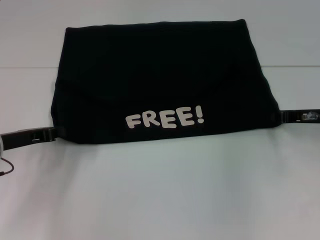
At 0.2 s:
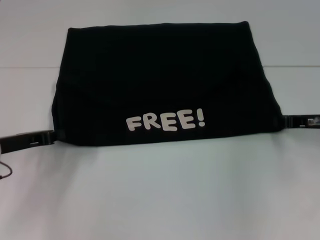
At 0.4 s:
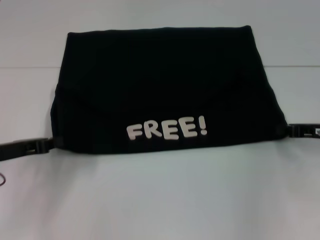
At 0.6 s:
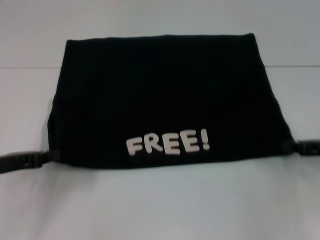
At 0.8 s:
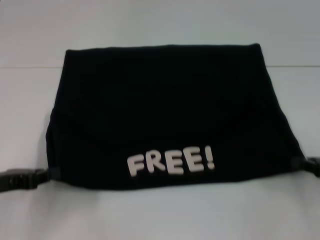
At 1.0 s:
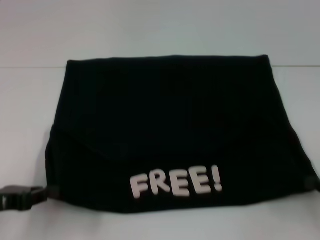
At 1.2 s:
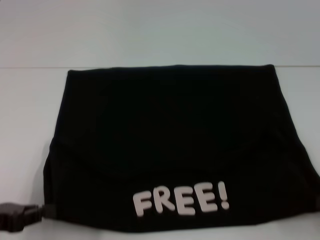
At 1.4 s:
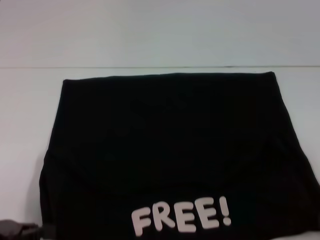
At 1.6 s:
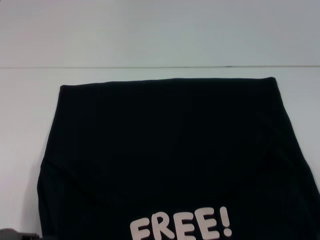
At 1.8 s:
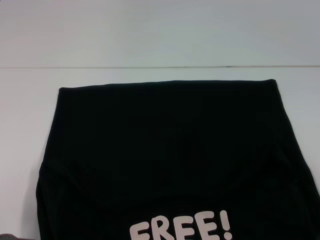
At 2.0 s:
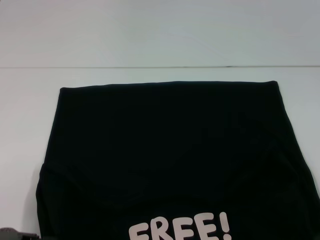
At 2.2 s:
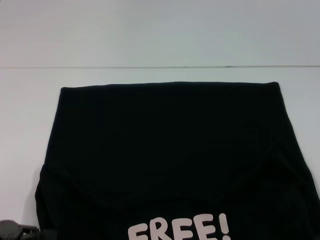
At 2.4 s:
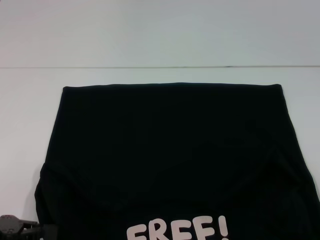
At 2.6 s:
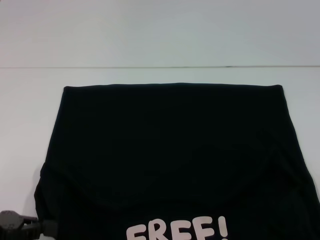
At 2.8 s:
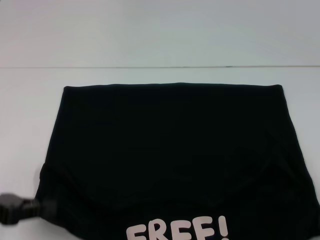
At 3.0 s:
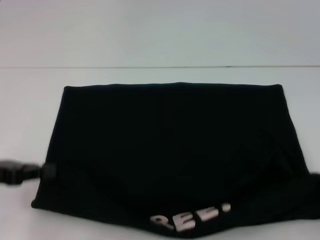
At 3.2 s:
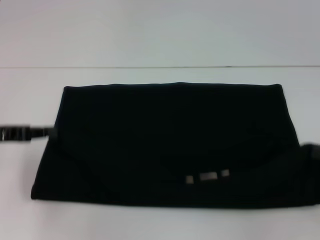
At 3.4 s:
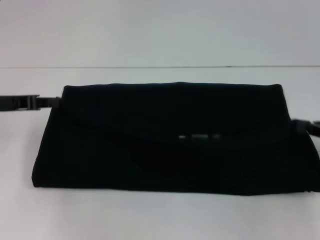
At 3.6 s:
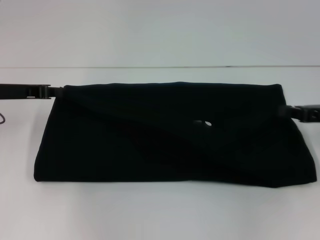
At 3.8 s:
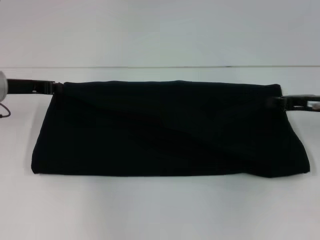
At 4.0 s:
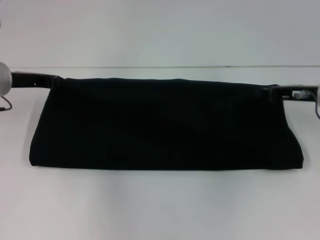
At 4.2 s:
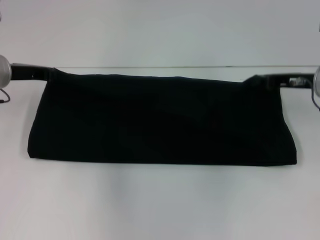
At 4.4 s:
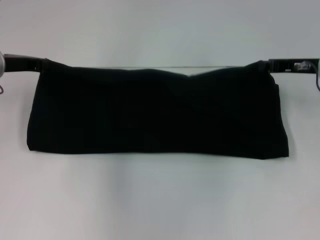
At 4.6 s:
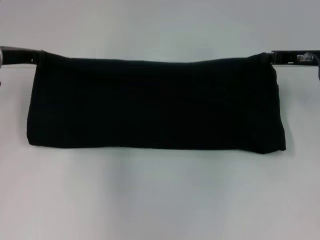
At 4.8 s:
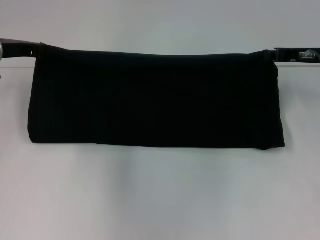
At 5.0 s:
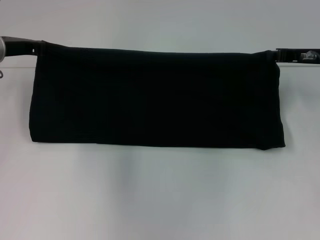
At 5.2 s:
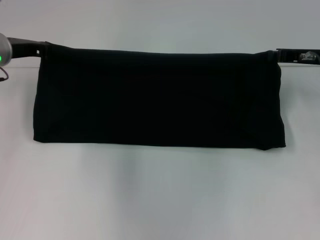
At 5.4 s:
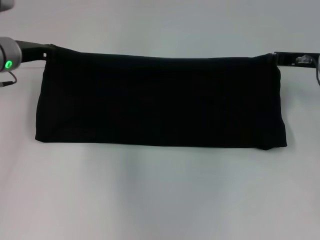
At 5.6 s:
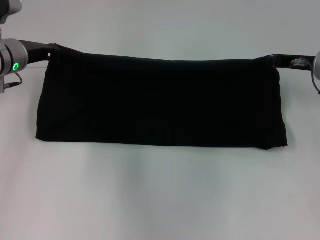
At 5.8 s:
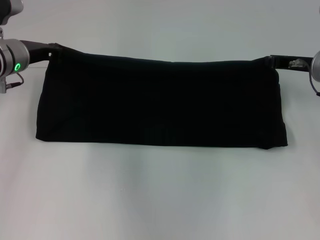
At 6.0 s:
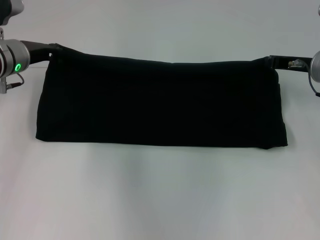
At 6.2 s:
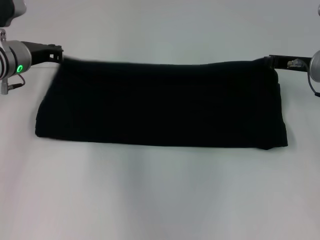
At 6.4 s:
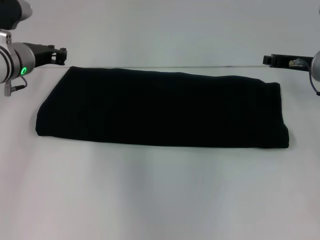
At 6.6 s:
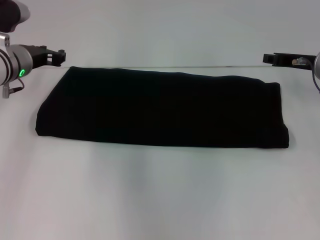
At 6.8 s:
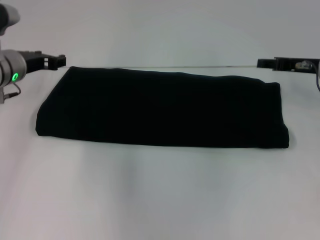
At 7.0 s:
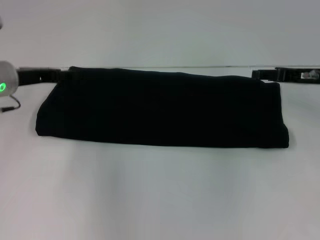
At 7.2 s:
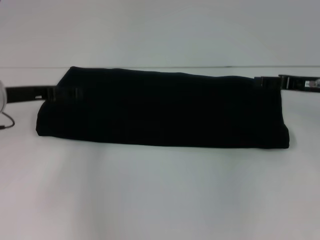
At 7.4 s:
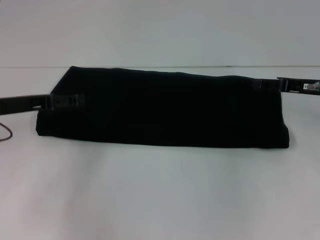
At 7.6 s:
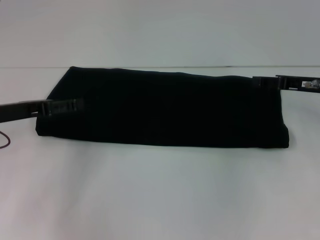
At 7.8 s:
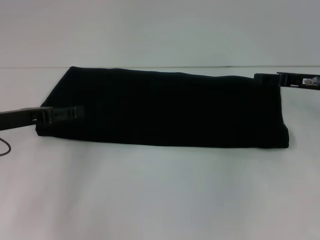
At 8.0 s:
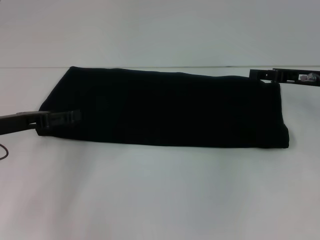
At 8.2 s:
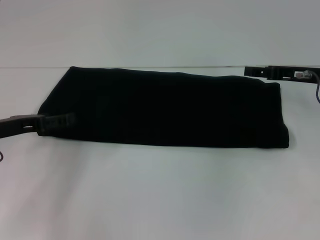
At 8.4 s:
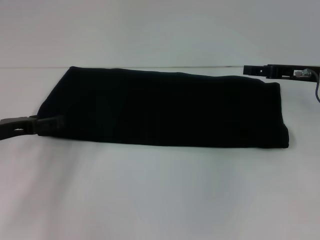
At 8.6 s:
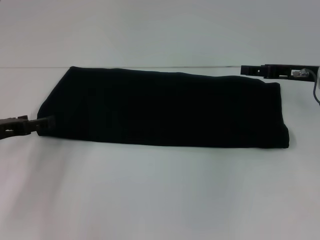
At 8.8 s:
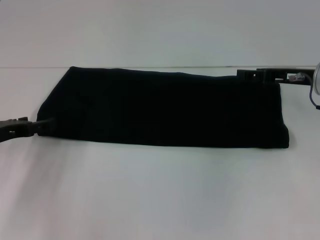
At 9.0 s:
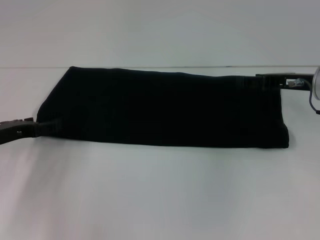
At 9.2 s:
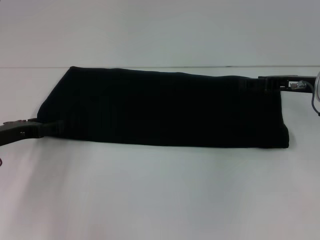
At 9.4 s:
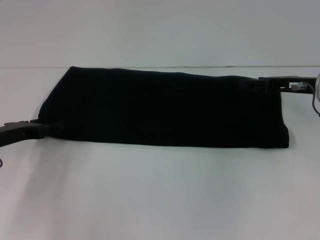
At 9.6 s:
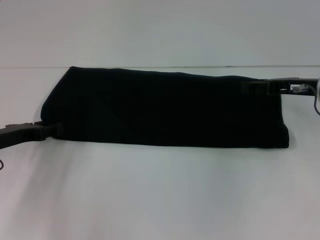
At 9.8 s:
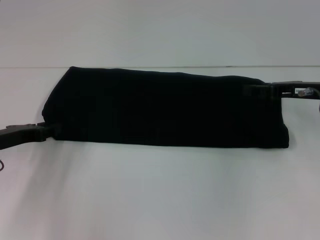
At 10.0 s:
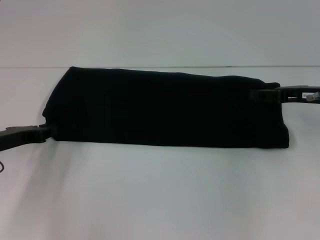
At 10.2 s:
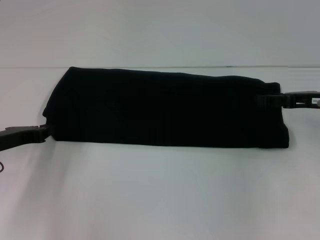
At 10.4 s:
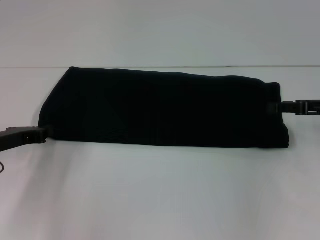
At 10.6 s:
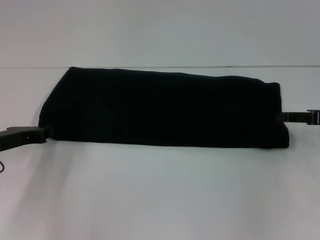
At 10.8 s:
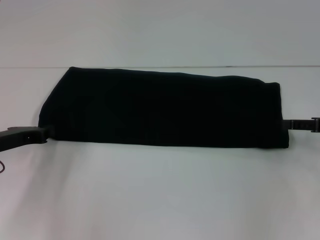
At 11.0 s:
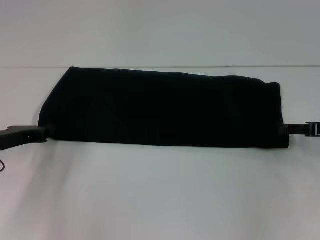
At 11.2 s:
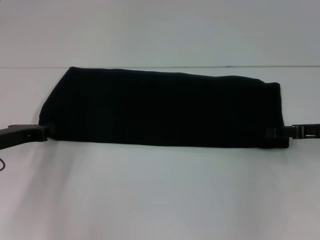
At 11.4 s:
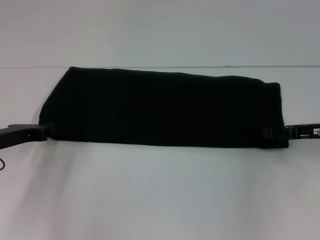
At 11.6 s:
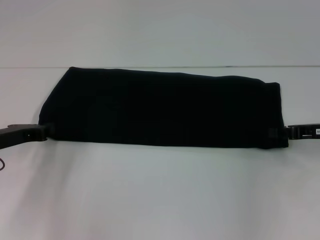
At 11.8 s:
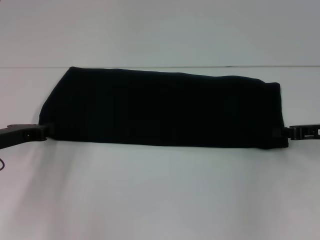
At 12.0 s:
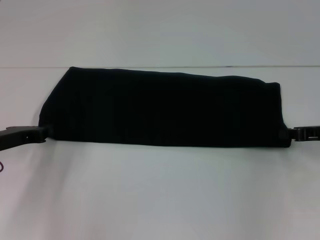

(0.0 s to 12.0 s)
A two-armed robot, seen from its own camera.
Step, 1.6 s - 7.2 s: Fold the clothes with your right hand.
0.0 s - 1.6 s: The left gripper is displaced backward by about 15 cm. The right gripper shifts approximately 20 cm backward and to the right.
1.6 s - 3.0 s: The left gripper shifts approximately 10 cm forward.
3.0 s - 4.4 s: The right gripper goes some 25 cm forward and to the left, while the left gripper is displaced forward by about 15 cm.
4.4 s - 6.0 s: The grippers stay close to where they were, moving slightly.
6.0 s - 7.6 s: The left gripper heads backward, covering roughly 10 cm, and opens. The right gripper opens its fingers.
7.6 s - 9.0 s: The left gripper heads downward, covering about 5 cm.
9.0 s - 10.4 s: The left gripper closes its fingers, while the right gripper is displaced to the right by some 5 cm.
10.4 s - 12.0 s: The right gripper closes up.

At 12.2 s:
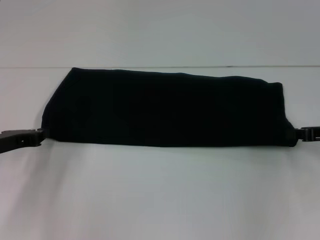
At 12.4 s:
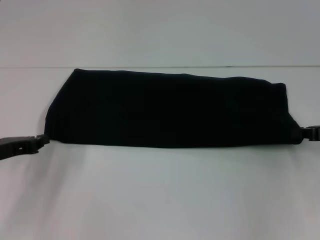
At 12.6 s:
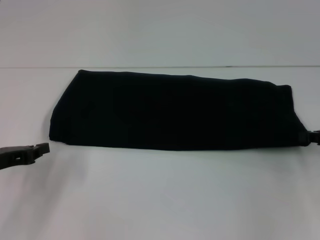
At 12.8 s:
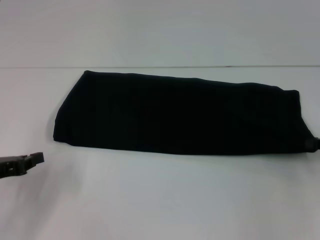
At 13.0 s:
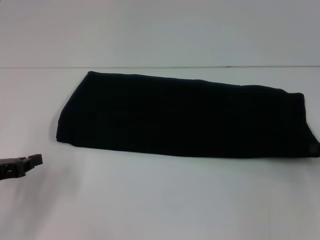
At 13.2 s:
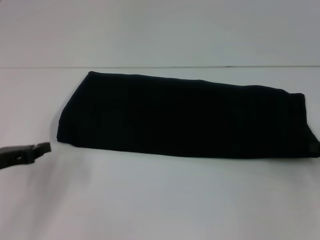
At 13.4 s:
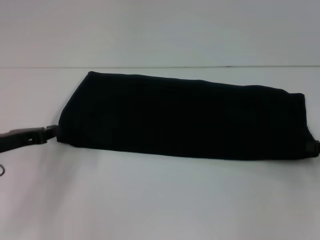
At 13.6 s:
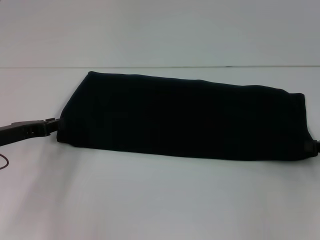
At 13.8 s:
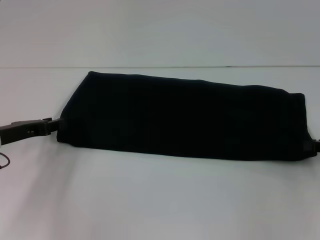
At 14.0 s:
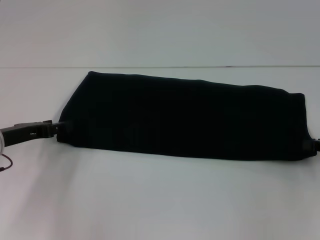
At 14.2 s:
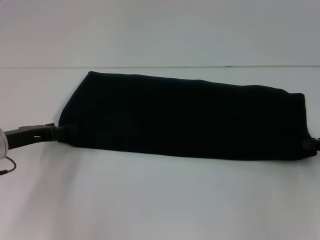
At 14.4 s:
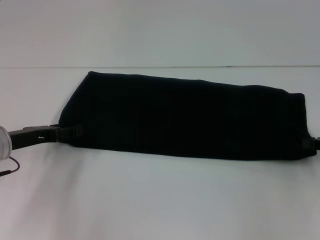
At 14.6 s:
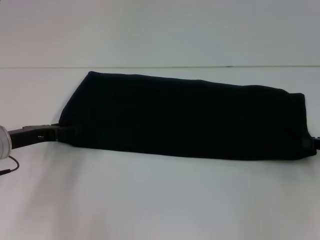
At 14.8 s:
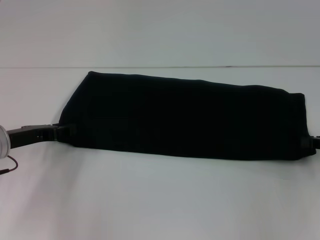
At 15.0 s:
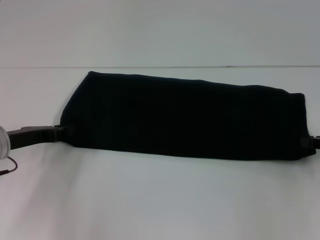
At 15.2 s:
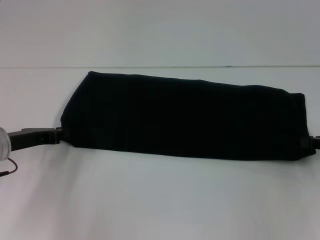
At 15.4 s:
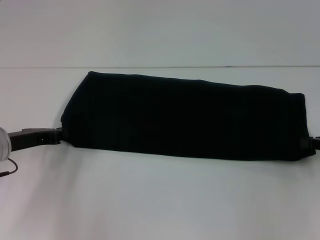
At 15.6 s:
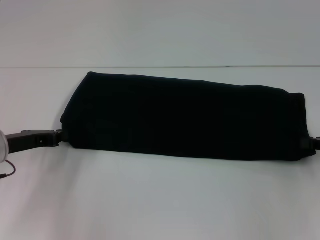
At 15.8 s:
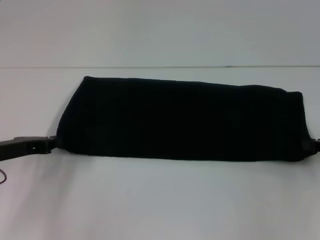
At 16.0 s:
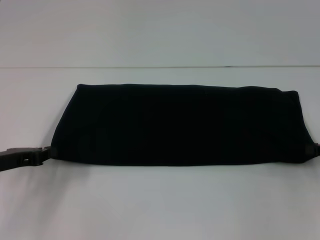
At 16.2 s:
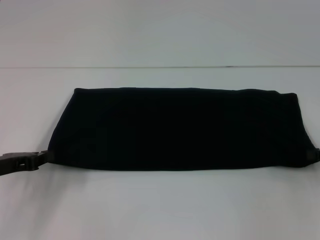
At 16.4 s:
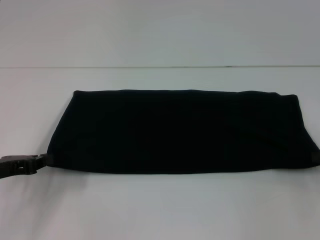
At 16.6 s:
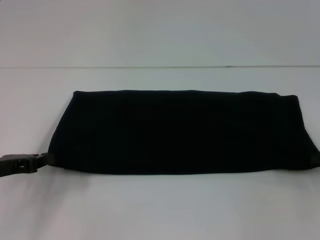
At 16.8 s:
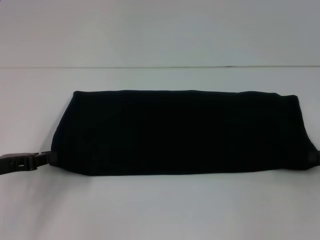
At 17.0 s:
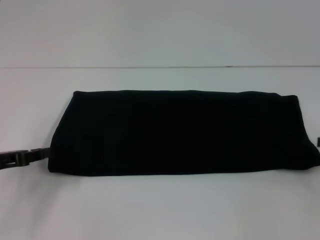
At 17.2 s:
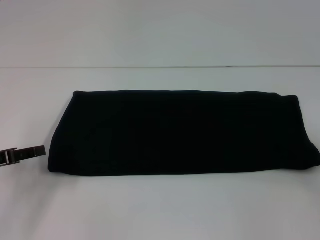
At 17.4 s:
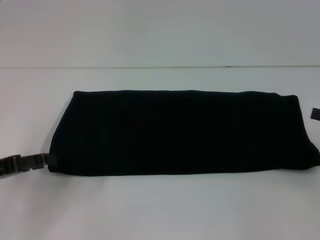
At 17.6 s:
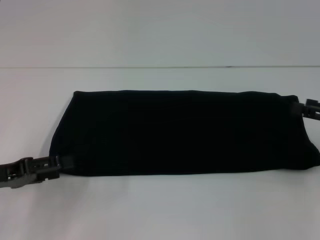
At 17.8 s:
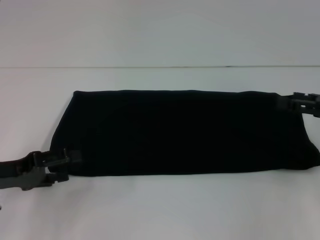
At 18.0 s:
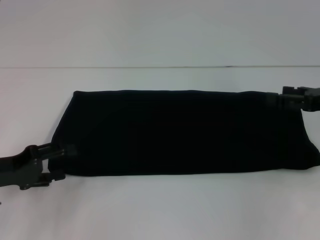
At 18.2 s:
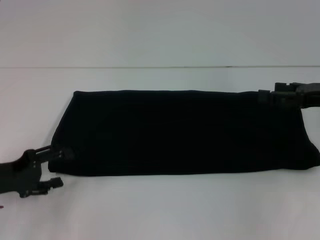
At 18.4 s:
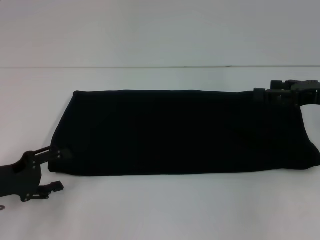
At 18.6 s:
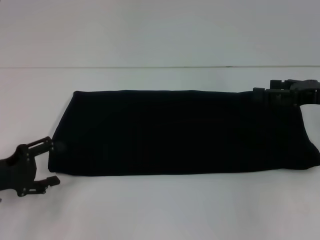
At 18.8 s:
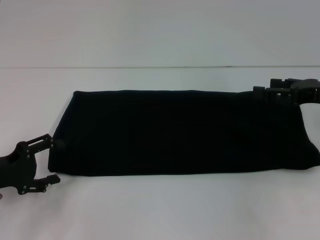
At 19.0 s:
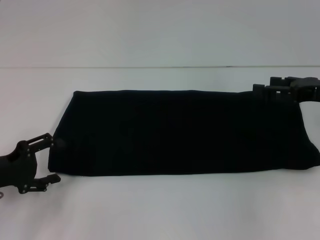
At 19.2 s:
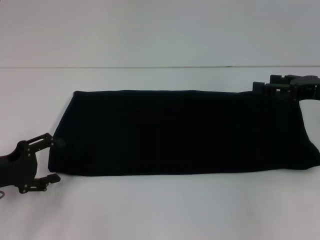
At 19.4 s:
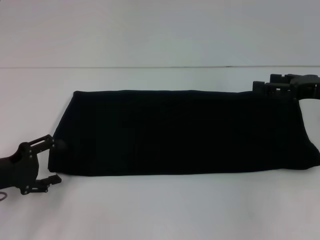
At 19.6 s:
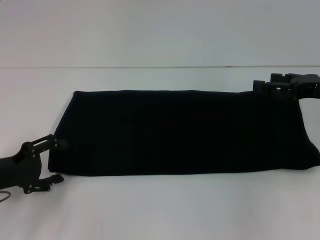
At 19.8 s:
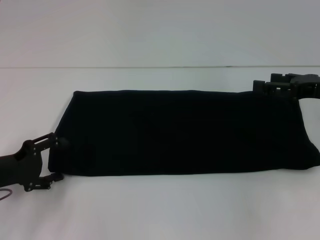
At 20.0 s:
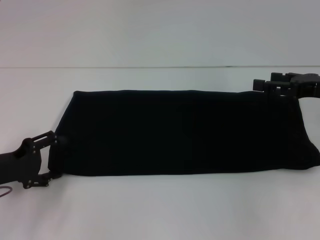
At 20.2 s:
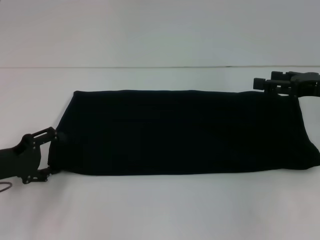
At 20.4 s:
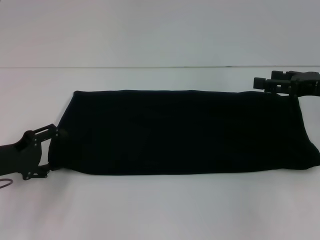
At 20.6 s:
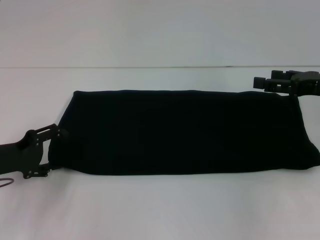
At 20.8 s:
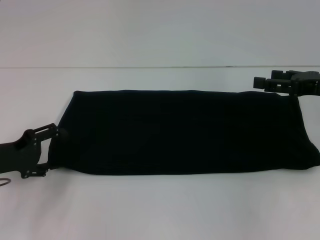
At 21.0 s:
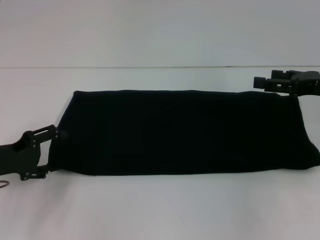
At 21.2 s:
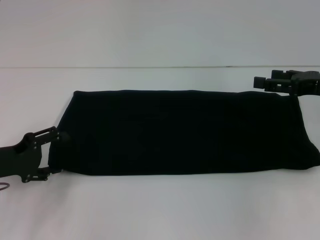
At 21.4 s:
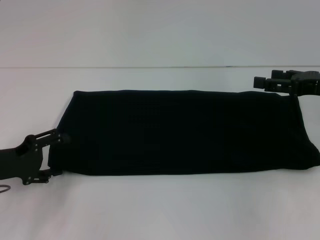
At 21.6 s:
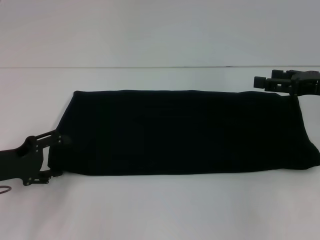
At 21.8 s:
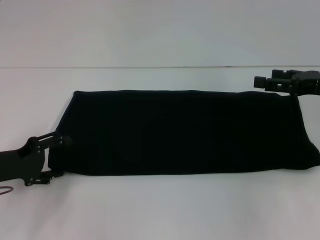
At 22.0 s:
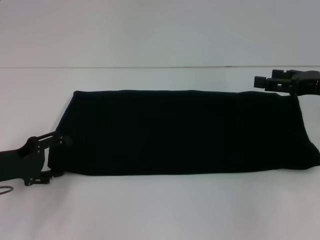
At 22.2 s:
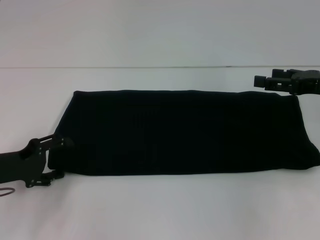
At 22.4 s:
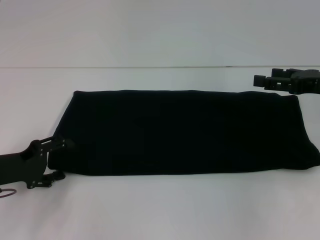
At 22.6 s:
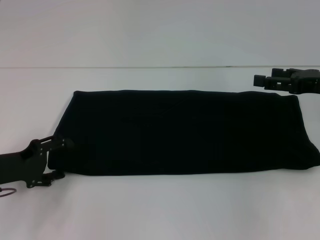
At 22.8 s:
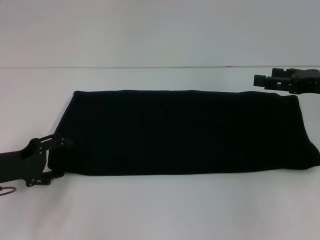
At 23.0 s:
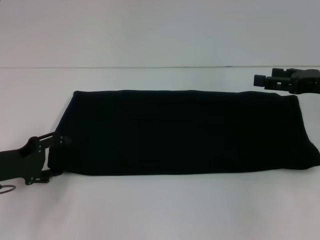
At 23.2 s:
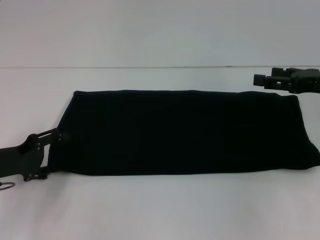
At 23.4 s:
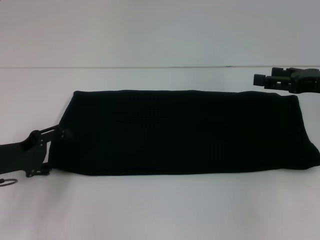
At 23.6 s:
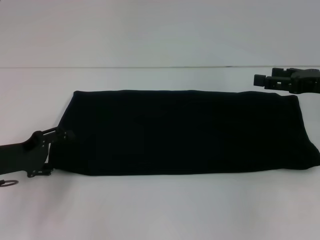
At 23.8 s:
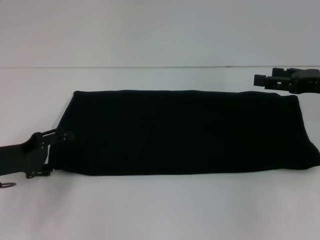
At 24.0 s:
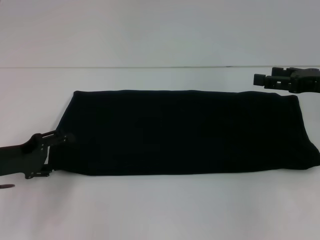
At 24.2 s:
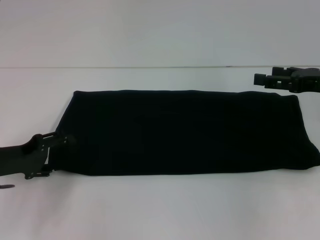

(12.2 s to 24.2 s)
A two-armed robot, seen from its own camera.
12.2 s - 13.8 s: The left gripper goes backward and returns, roughly 5 cm each way.
13.8 s - 15.2 s: The left gripper opens, then closes again.
15.2 s - 16.6 s: The left gripper is displaced backward by approximately 5 cm.
16.6 s - 18.2 s: The right gripper moves to the left, forward and upward, approximately 10 cm, and opens its fingers, while the left gripper opens.
18.2 s - 24.2 s: The grippers make only small movements.
